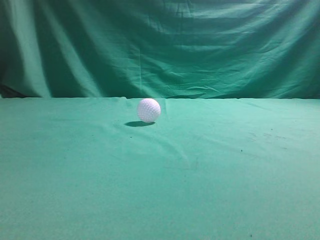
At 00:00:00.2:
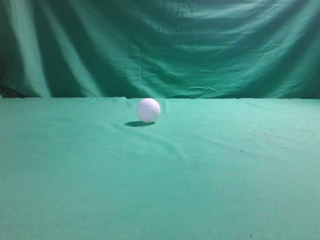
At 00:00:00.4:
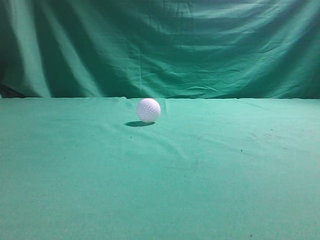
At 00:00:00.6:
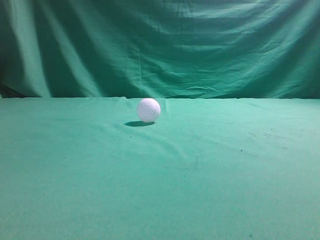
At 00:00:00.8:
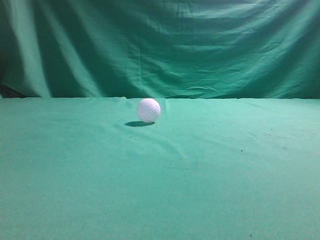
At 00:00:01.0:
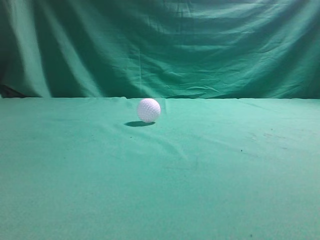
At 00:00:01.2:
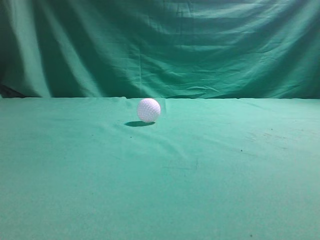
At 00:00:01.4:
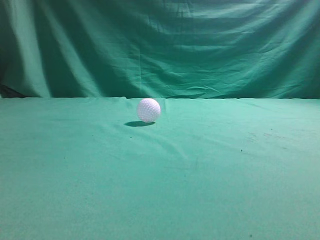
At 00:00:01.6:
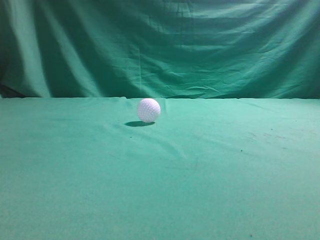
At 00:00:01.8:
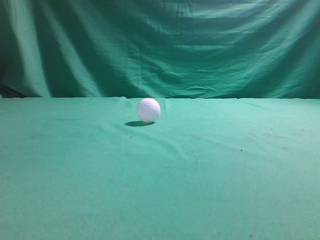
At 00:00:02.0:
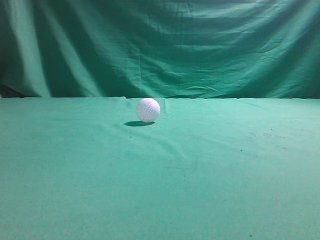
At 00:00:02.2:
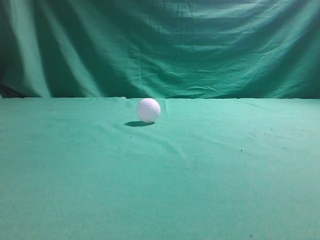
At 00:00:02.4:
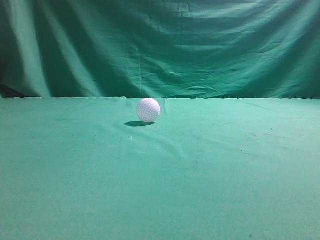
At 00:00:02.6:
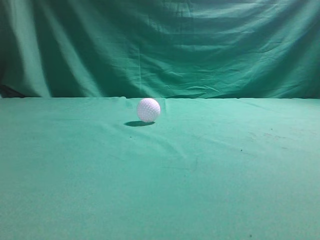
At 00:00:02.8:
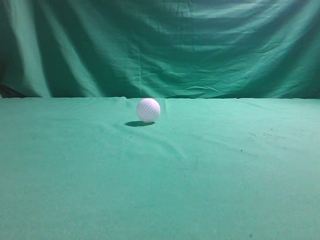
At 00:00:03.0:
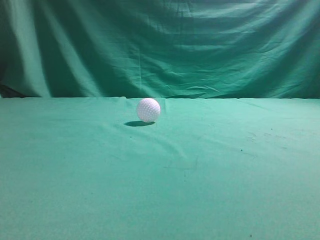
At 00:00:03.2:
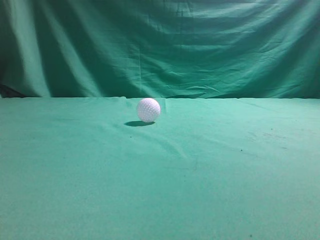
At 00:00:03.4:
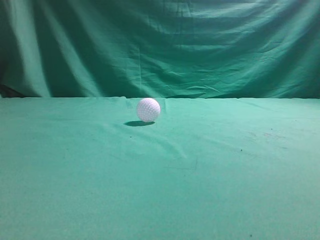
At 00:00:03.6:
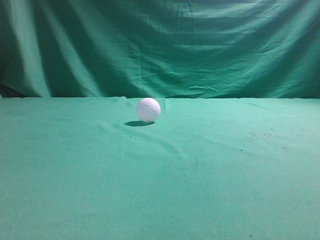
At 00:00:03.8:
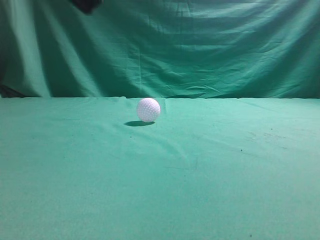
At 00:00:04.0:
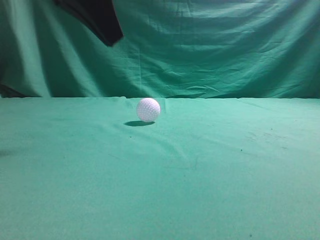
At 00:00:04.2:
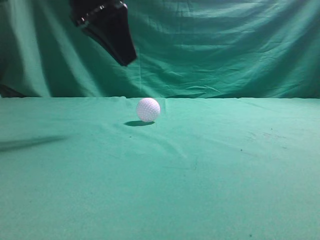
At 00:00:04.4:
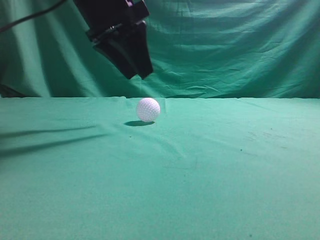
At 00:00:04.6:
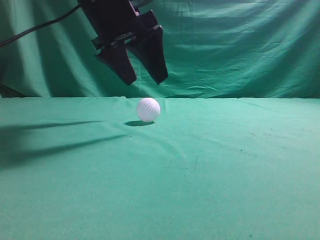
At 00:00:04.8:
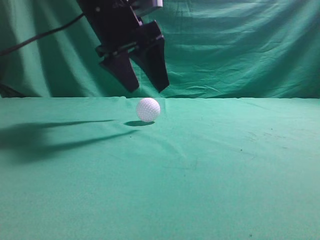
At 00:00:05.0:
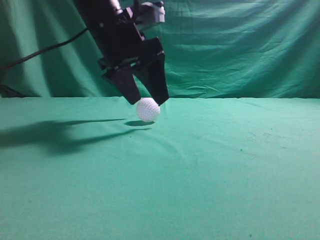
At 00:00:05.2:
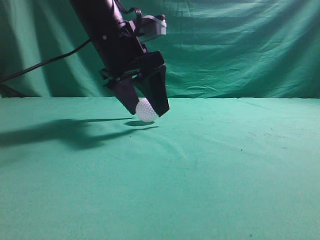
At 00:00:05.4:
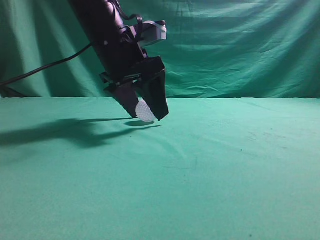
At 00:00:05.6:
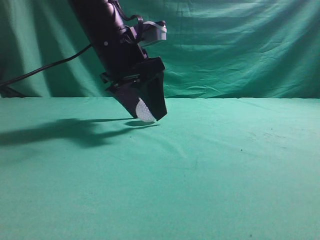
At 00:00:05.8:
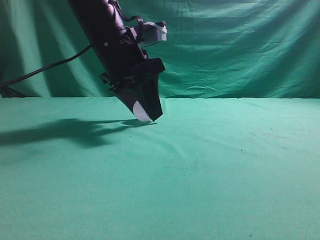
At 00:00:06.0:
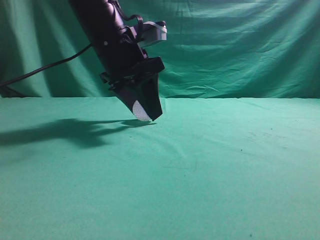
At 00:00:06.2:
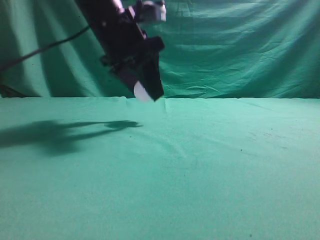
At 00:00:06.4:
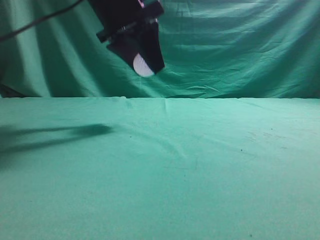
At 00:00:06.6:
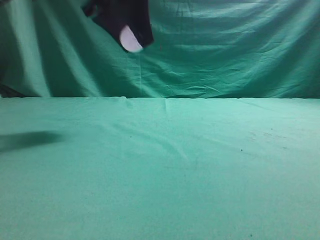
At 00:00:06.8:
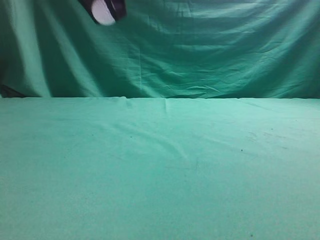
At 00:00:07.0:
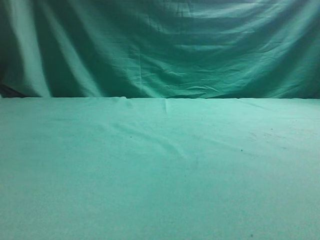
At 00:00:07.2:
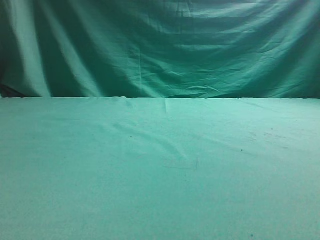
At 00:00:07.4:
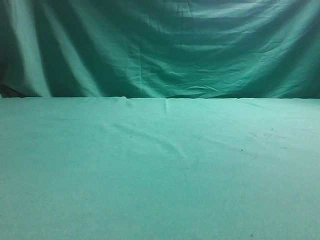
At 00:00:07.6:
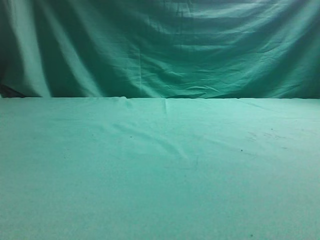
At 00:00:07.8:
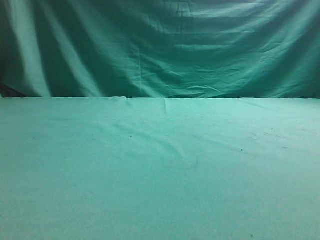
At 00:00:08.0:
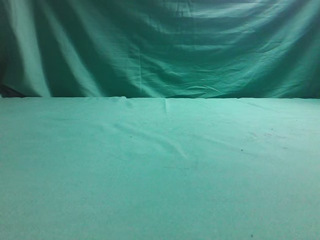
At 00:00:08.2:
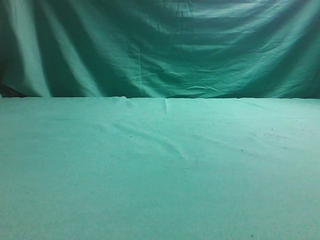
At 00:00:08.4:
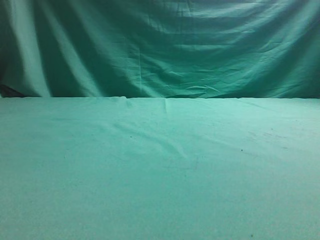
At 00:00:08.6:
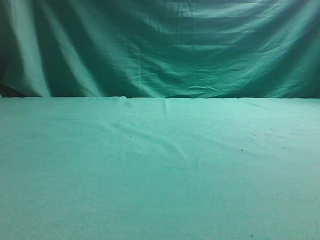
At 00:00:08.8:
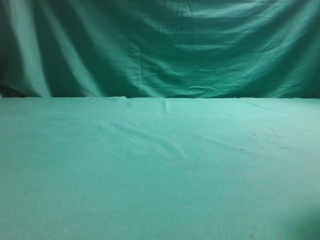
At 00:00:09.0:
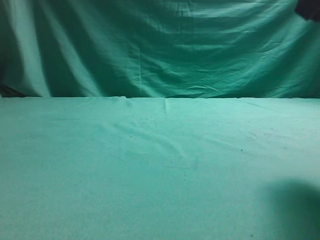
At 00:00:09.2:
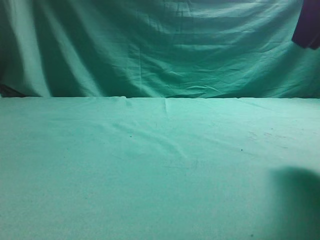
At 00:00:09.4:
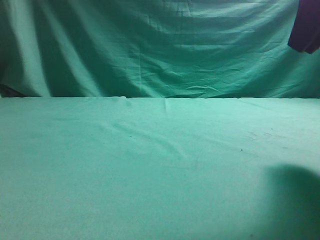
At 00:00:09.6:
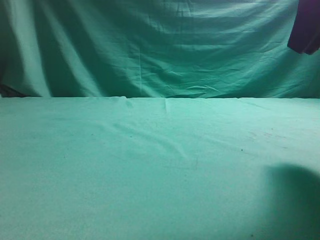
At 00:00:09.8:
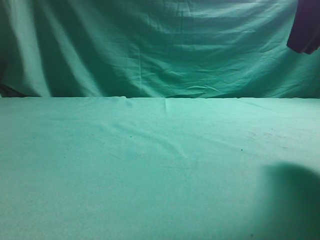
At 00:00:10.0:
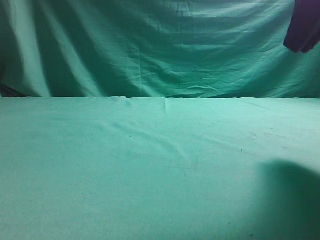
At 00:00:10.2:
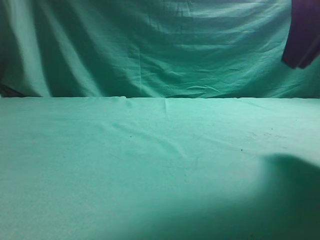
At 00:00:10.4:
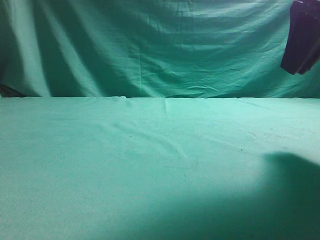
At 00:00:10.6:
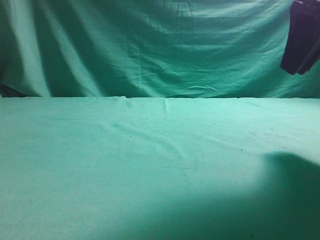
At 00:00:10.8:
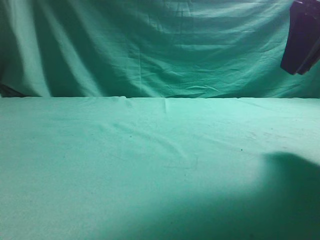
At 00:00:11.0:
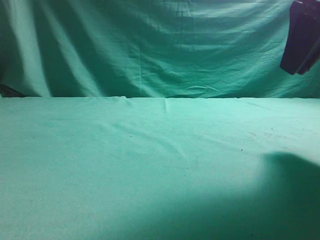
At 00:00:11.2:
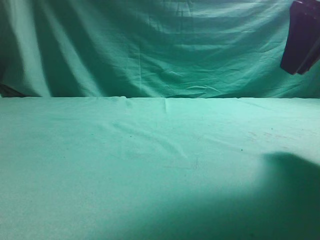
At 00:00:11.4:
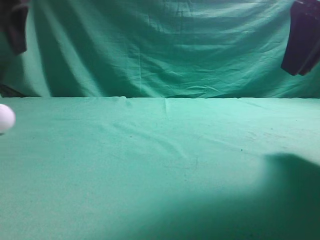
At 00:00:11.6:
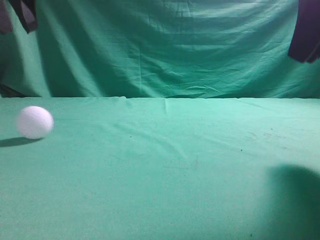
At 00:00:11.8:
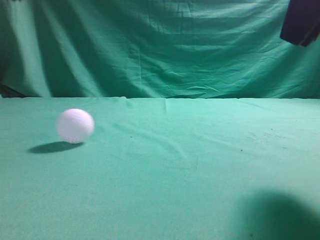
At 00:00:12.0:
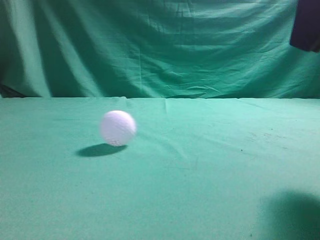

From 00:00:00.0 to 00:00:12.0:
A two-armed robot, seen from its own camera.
Task of the whole recording: pick up the ball and place it on the plate, then pick up the ball from the plate and put it in the center of the table.
Step, from 00:00:00.0 to 00:00:06.2: Grab the spherical object with your left arm.
Step, from 00:00:06.4 to 00:00:10.6: Place the sphere on the white object.
From 00:00:03.0 to 00:00:04.4: The left gripper moves forward and to the right, approximately 30 cm, and opens its fingers.
From 00:00:04.4 to 00:00:06.0: The left gripper goes approximately 5 cm downward.
From 00:00:06.0 to 00:00:07.6: The right gripper heads upward, covering approximately 10 cm; the left gripper travels upward, backward and to the left by roughly 25 cm.
From 00:00:07.6 to 00:00:09.0: The right gripper is displaced forward and to the left by about 15 cm.
From 00:00:09.0 to 00:00:10.4: The left gripper changes place by about 5 cm.
From 00:00:10.4 to 00:00:12.0: The right gripper goes roughly 5 cm backward, while the left gripper heads upward and to the right, covering roughly 20 cm, and closes its fingers.

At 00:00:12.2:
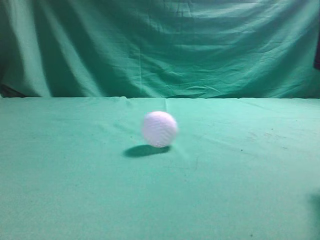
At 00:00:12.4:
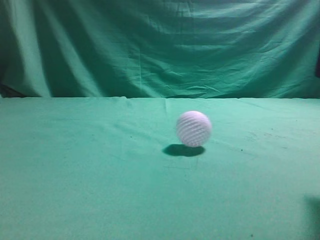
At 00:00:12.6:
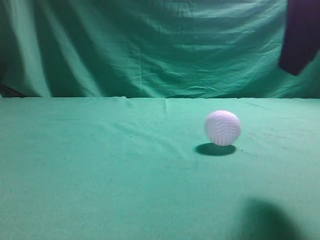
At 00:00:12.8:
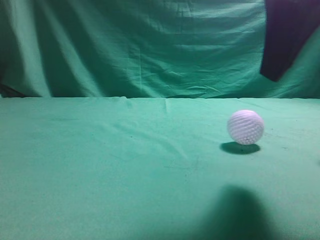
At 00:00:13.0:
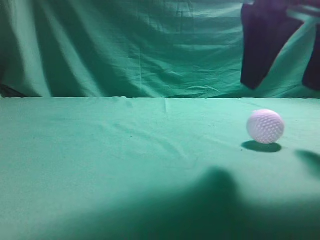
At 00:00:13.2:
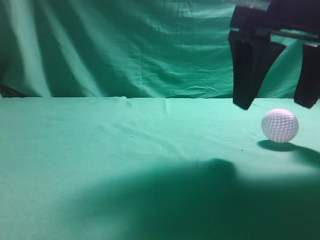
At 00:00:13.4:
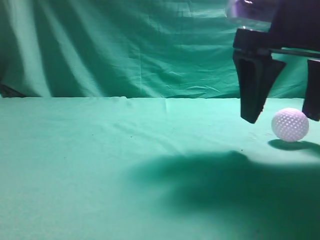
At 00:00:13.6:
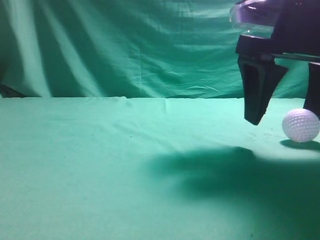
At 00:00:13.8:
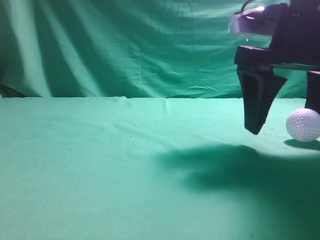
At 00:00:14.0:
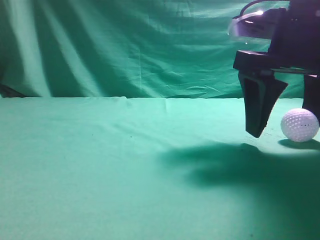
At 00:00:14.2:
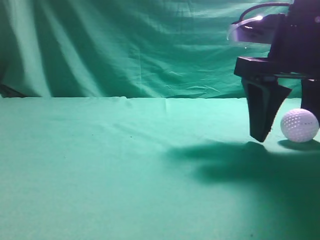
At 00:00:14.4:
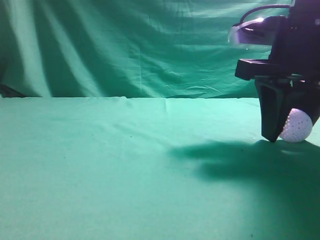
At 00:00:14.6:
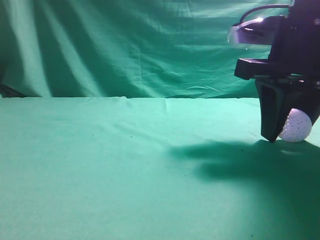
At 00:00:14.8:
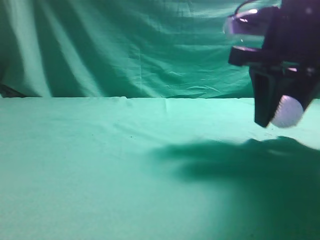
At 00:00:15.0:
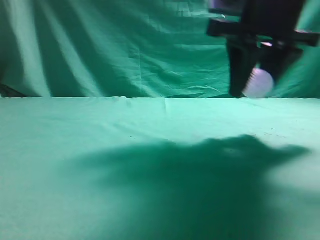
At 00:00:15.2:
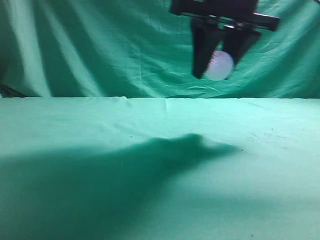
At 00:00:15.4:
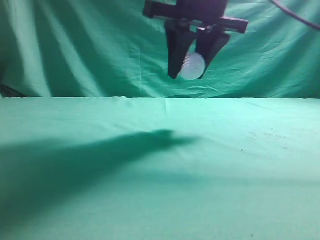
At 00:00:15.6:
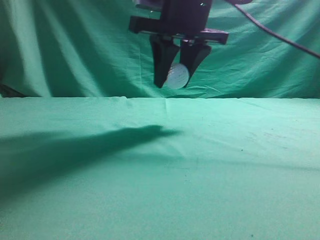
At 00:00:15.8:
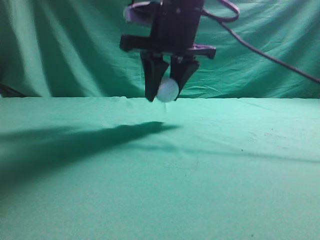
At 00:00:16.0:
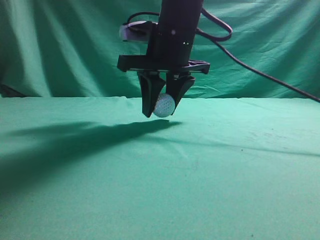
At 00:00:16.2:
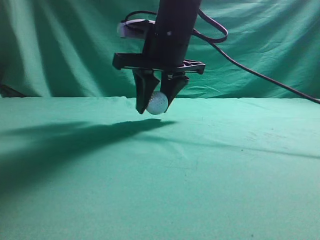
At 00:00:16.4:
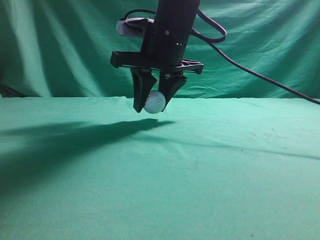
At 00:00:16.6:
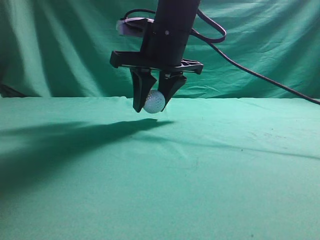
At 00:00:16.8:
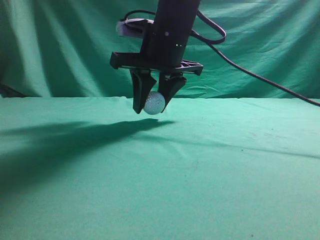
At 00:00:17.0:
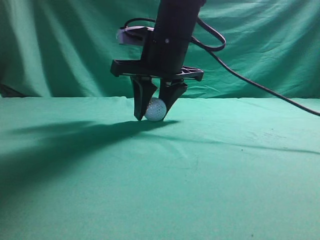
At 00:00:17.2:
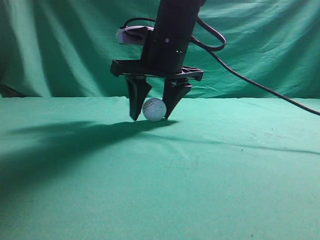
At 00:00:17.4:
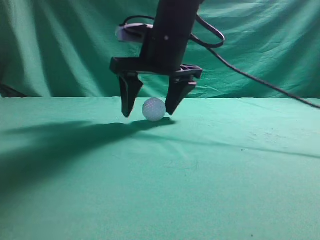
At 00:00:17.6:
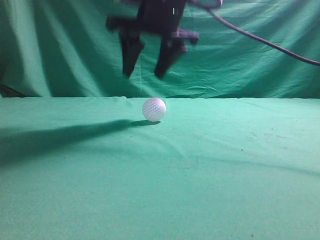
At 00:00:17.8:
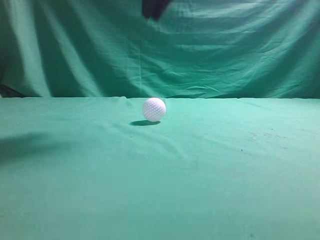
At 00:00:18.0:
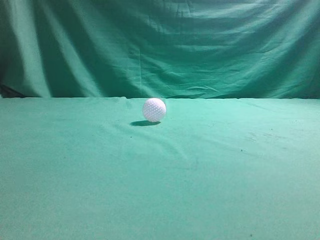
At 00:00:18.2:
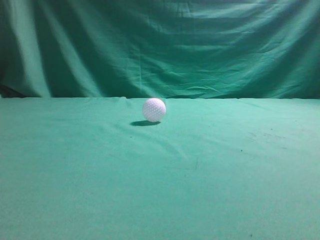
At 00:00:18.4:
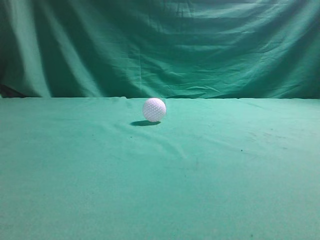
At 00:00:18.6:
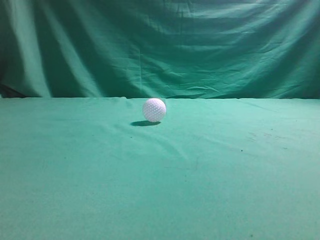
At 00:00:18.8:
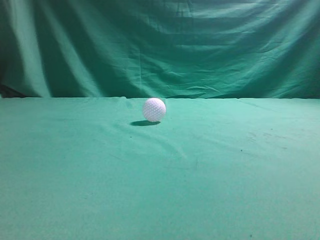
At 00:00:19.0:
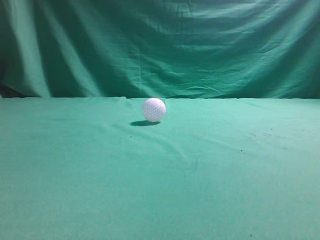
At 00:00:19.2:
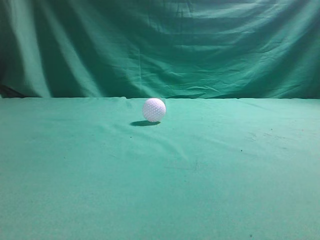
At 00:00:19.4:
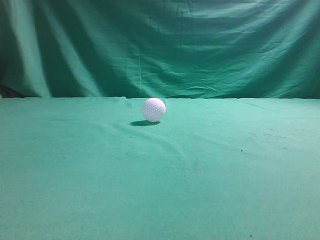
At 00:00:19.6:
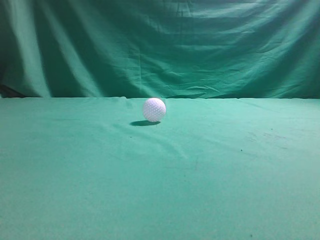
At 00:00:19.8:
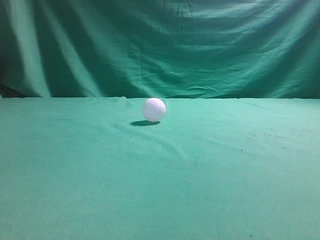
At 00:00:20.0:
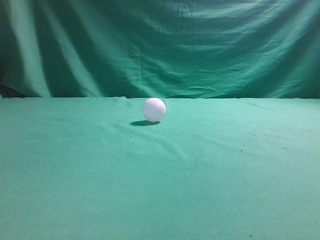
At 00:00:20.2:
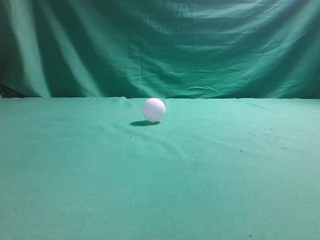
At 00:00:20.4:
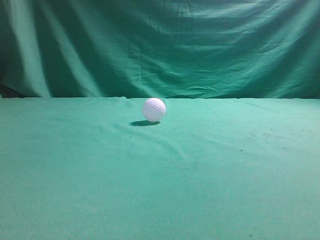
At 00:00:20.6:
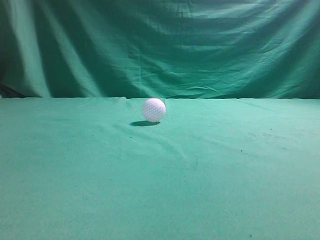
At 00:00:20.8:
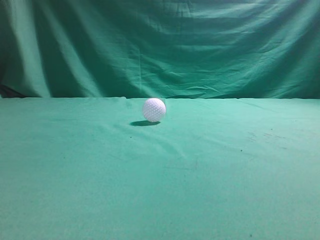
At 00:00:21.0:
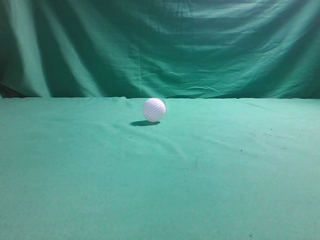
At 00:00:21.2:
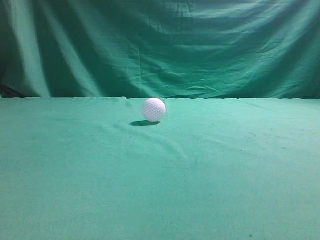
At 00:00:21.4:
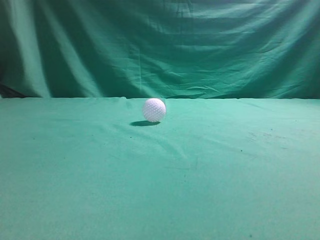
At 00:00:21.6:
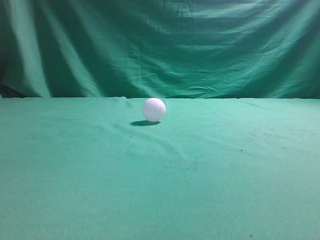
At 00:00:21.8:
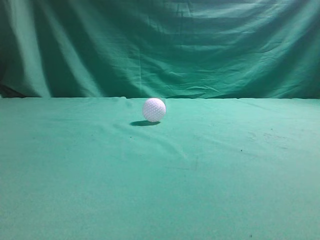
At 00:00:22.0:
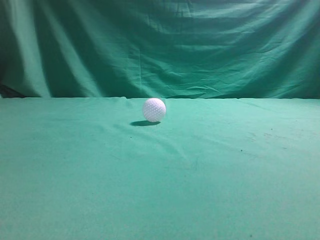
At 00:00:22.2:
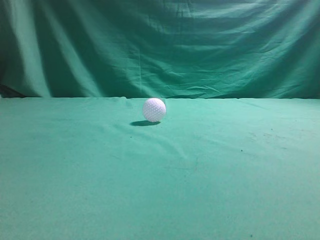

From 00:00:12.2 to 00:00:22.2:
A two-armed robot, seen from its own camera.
Task of the whole recording: pick up the ball and place it on the plate, then pick up the ball from the plate and put it in the center of the table.
Step, from 00:00:12.2 to 00:00:14.8: Grab the rolling spherical object.
Step, from 00:00:15.0 to 00:00:17.4: Put the picked-up object on the table.
From 00:00:12.2 to 00:00:13.6: The left gripper goes about 15 cm backward. Meanwhile the right gripper moves forward, some 10 cm, and opens.
From 00:00:13.6 to 00:00:15.0: The right gripper changes place by roughly 5 cm, and closes up.
From 00:00:15.0 to 00:00:16.4: The right gripper shifts roughly 15 cm to the left and forward; the left gripper ends up approximately 5 cm from where it was.
From 00:00:16.4 to 00:00:18.0: The right gripper goes some 20 cm upward, and closes its fingers.
